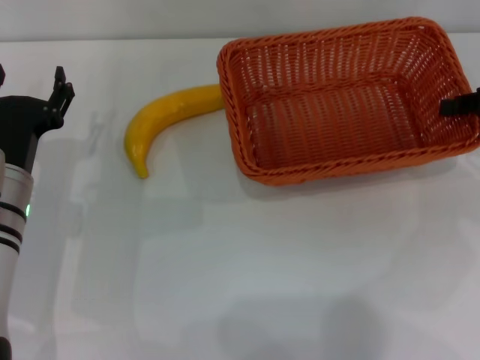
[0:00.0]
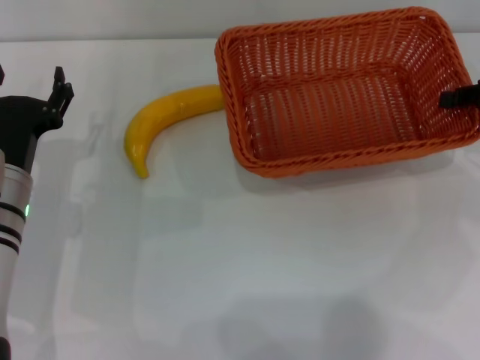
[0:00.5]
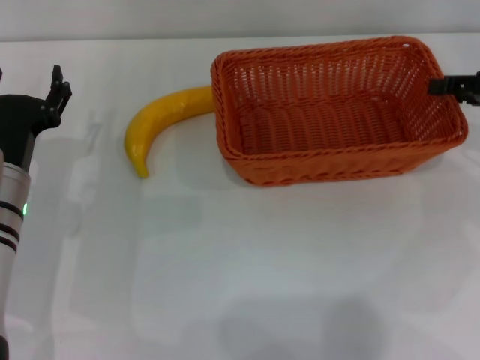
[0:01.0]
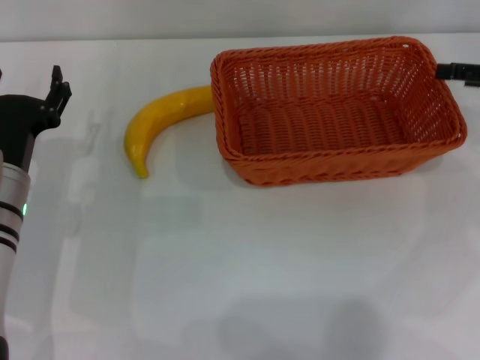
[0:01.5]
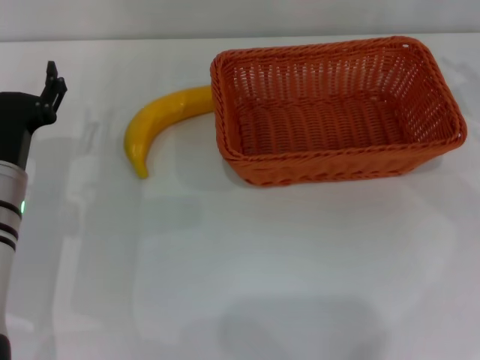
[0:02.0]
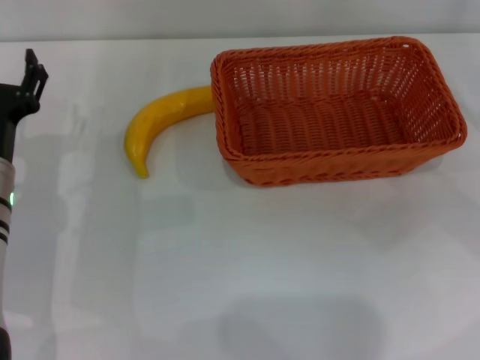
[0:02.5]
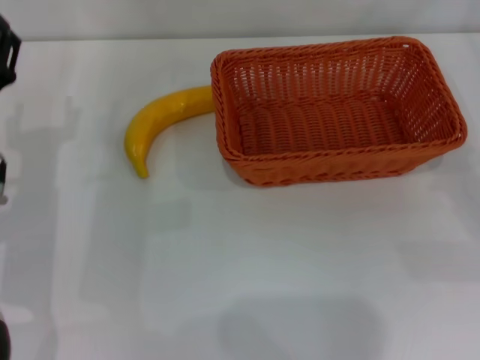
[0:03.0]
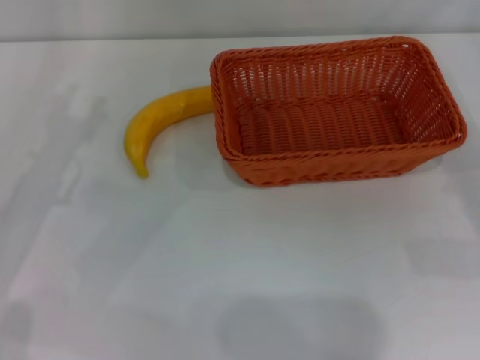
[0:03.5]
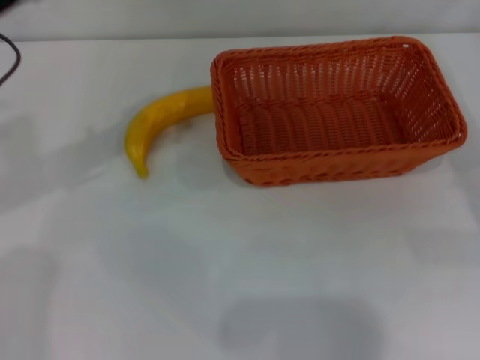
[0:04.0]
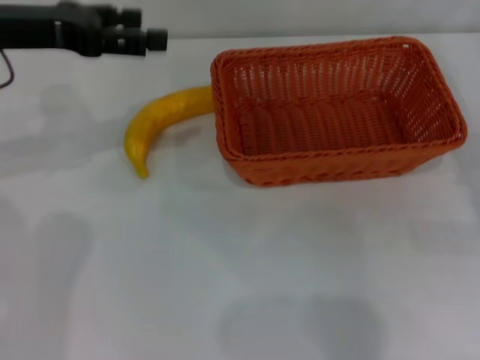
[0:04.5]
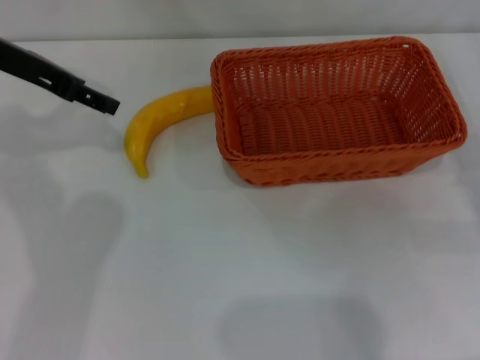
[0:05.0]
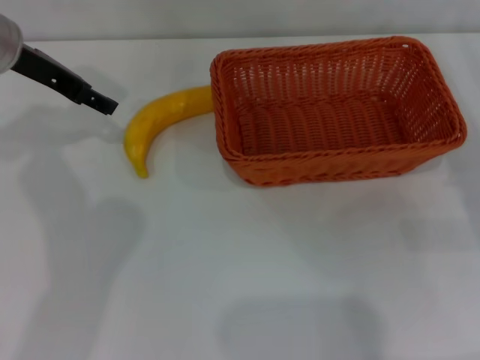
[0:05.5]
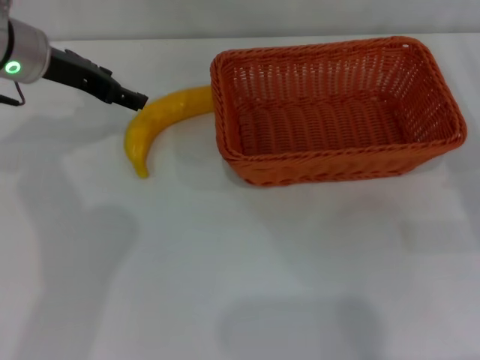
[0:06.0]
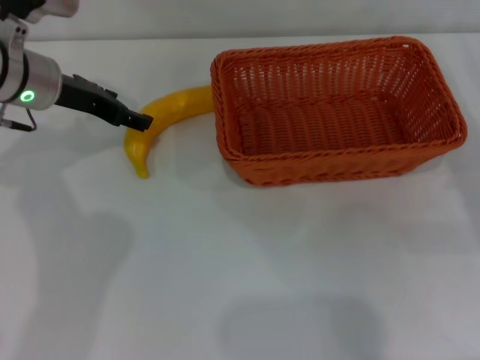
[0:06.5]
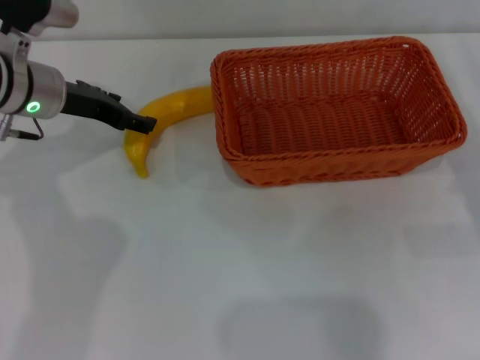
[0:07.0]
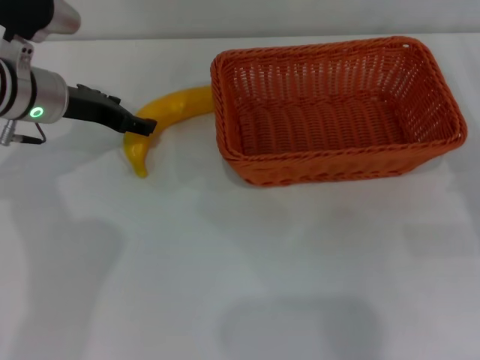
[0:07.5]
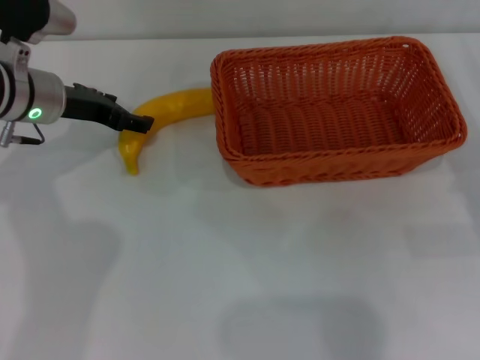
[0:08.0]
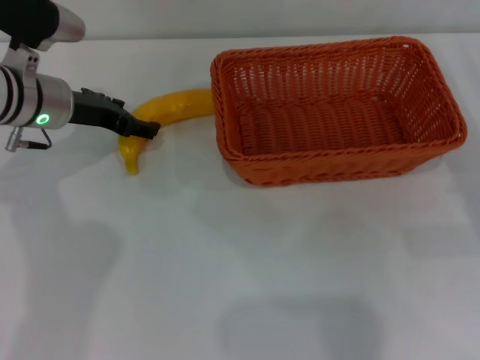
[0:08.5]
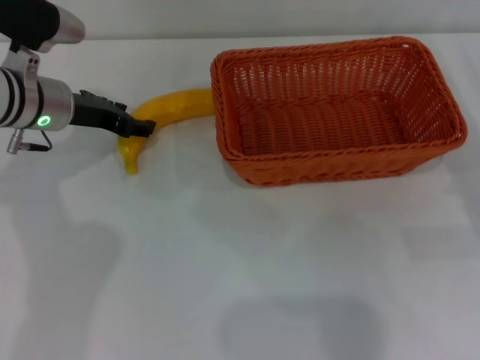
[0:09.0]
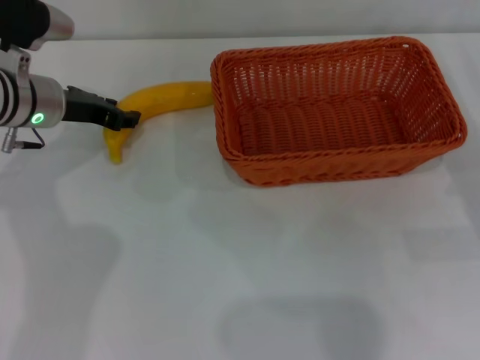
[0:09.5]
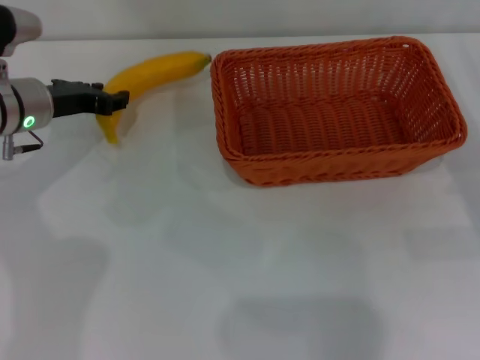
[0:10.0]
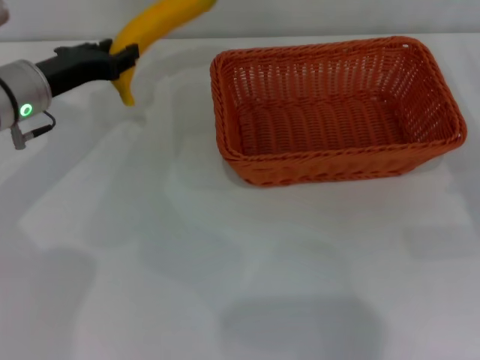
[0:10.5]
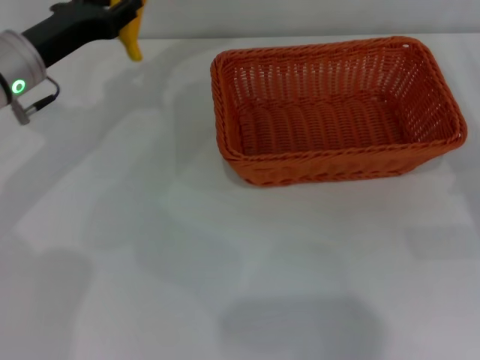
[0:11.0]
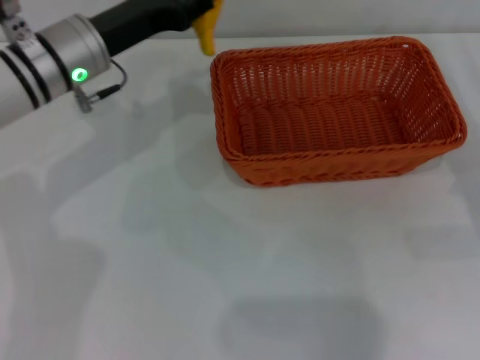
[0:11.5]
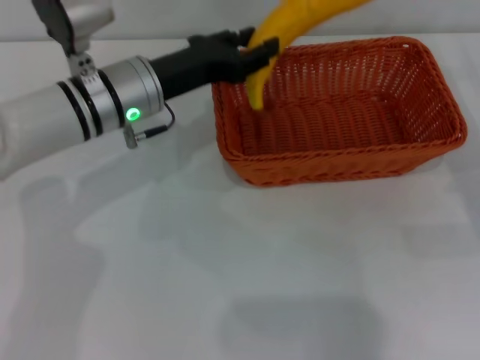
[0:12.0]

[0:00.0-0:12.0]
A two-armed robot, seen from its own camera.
Step, 0:02.0 to 0:10.5: Pick up the banana with the left gripper.
0:00.0 to 0:02.0: The right gripper ends up approximately 5 cm from where it was, and opens up.
0:02.0 to 0:04.0: The right gripper travels downward and backward by some 15 cm, while the left gripper travels upward by roughly 15 cm.
0:04.0 to 0:06.0: The left gripper travels forward by approximately 10 cm.
0:06.0 to 0:08.0: The left gripper goes about 5 cm downward.
0:08.0 to 0:10.0: The left gripper closes.
0:10.0 to 0:12.0: The left gripper is displaced to the right by some 10 cm.

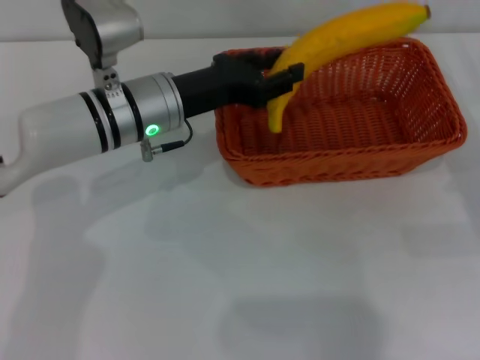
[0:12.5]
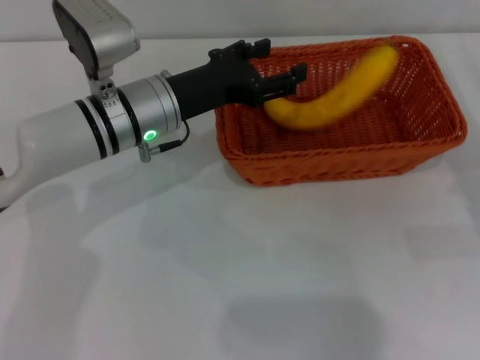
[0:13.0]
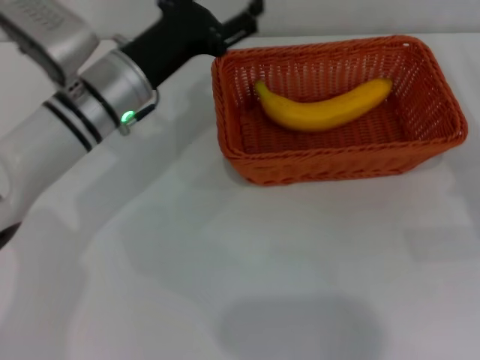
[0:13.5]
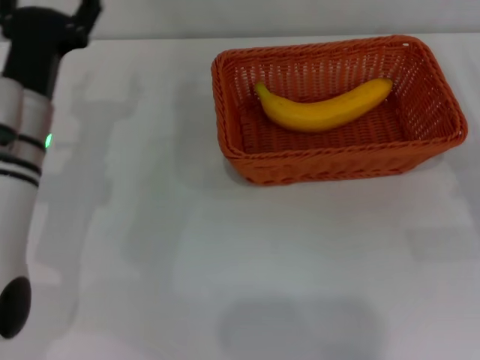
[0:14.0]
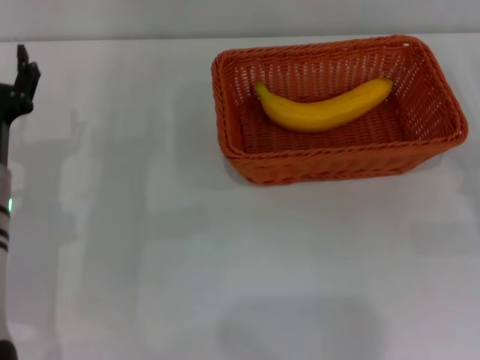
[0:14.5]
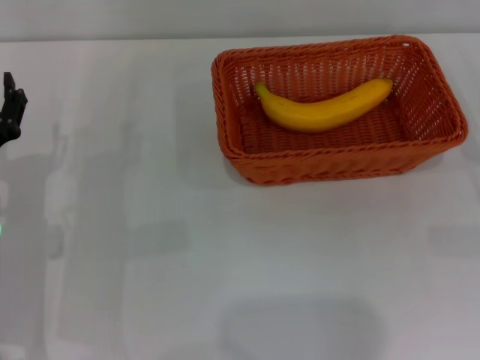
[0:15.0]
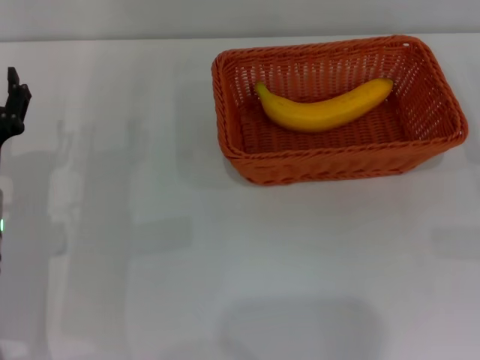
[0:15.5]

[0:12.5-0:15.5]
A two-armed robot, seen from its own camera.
0:12.5 to 0:14.0: The left gripper is displaced to the left by roughly 10 cm, and opens.
0:14.0 to 0:15.5: The left gripper moves backward, approximately 5 cm.
